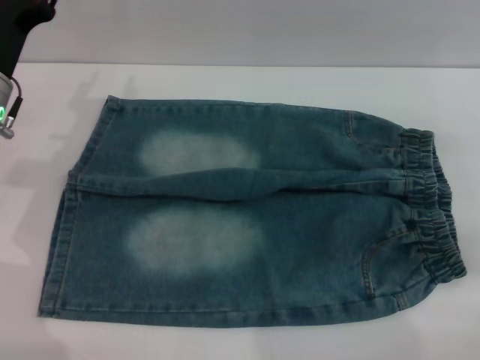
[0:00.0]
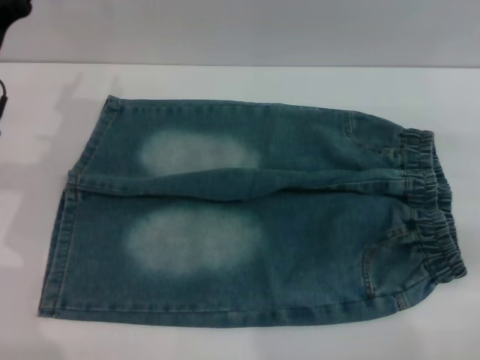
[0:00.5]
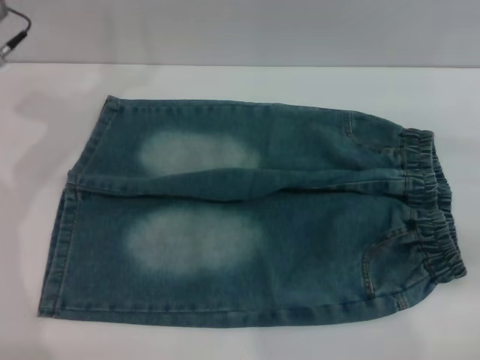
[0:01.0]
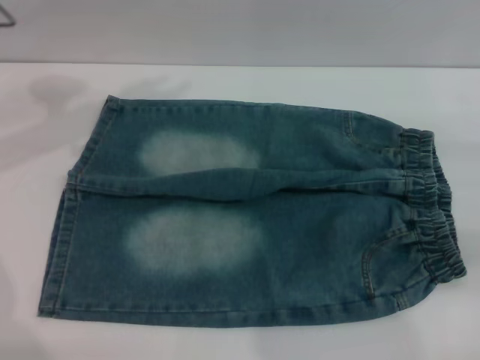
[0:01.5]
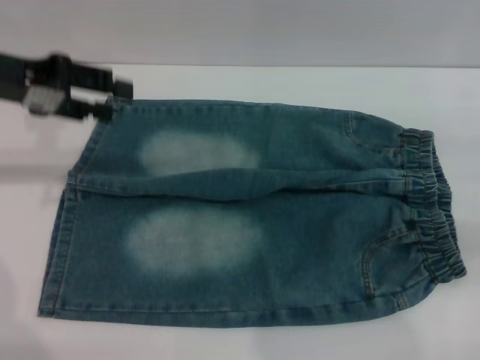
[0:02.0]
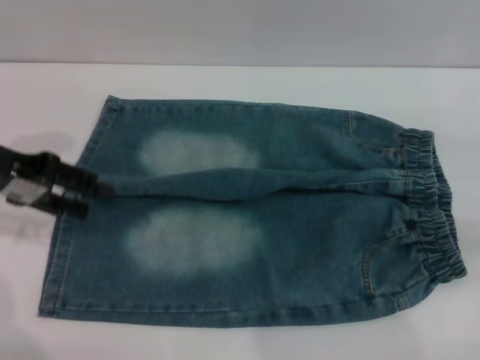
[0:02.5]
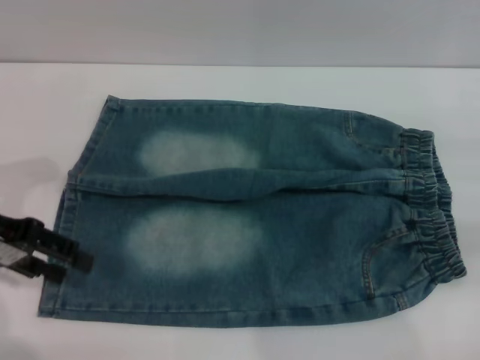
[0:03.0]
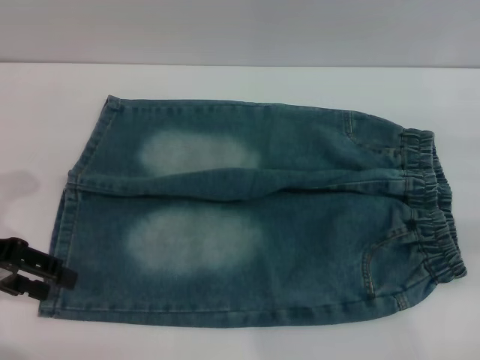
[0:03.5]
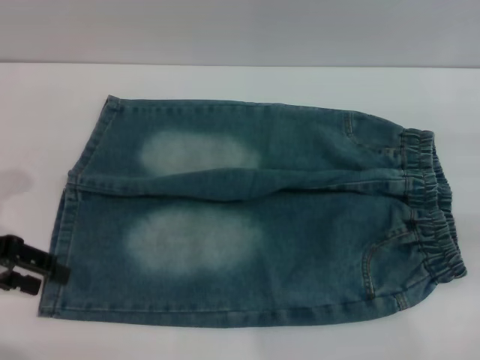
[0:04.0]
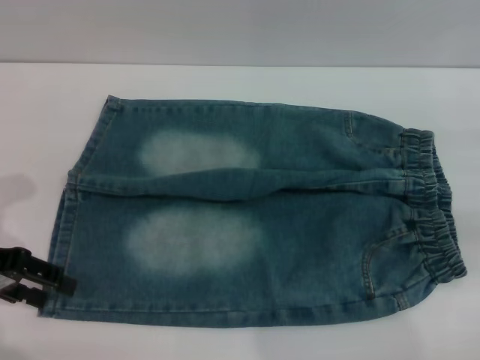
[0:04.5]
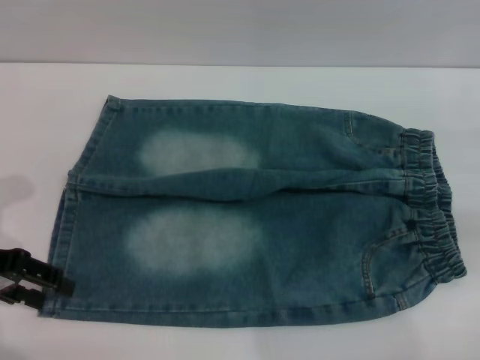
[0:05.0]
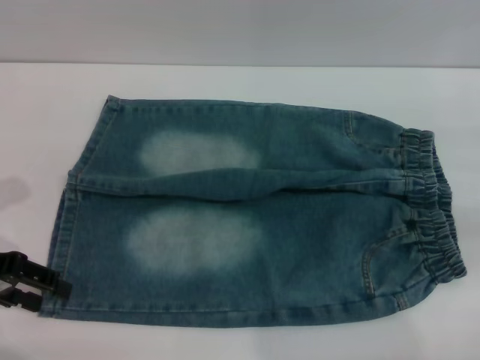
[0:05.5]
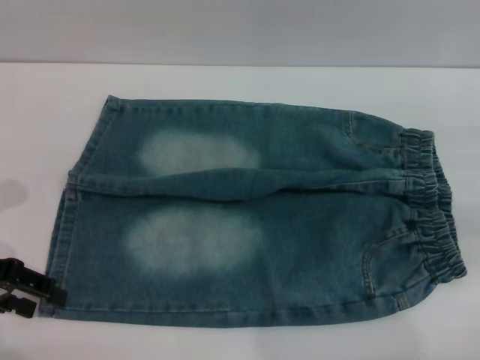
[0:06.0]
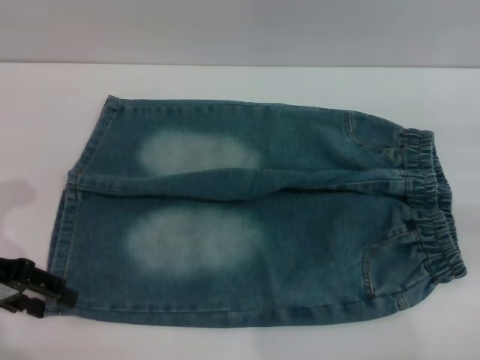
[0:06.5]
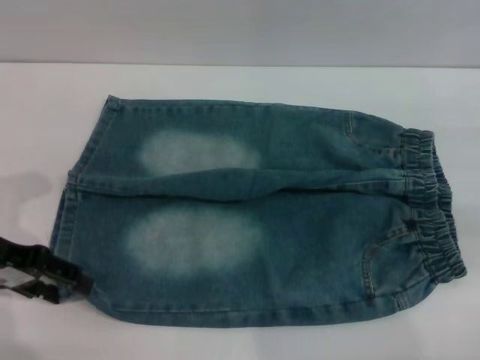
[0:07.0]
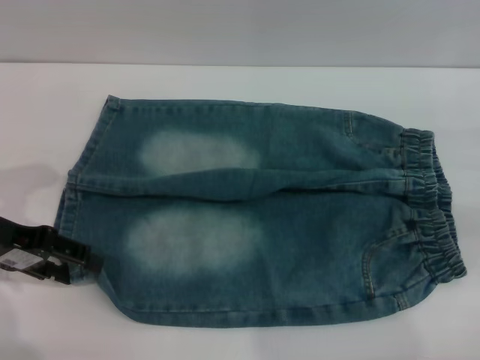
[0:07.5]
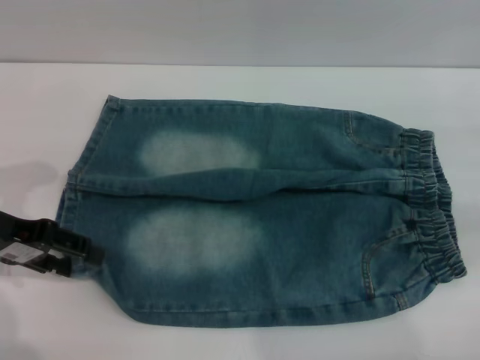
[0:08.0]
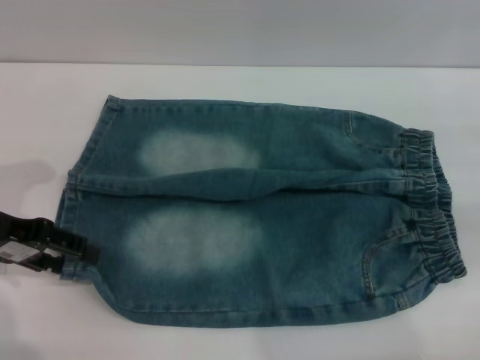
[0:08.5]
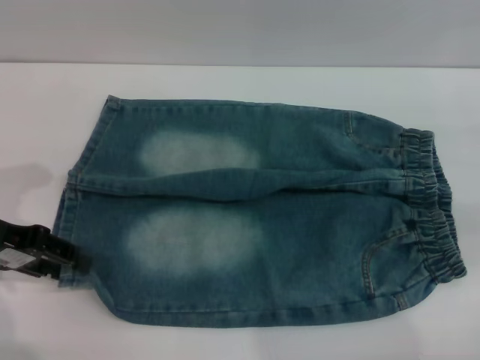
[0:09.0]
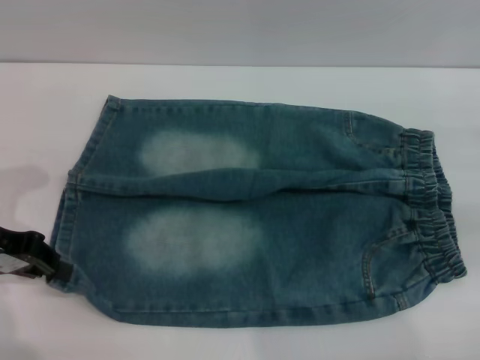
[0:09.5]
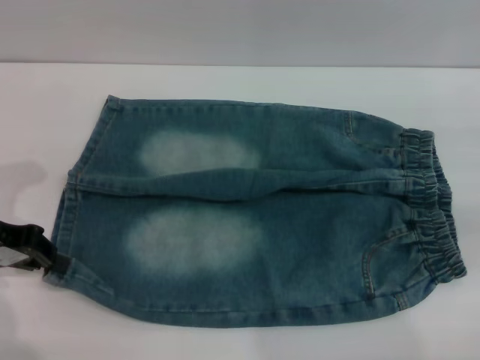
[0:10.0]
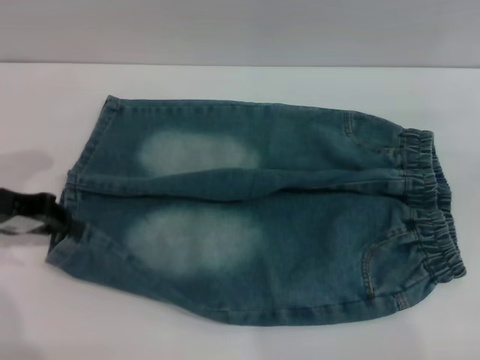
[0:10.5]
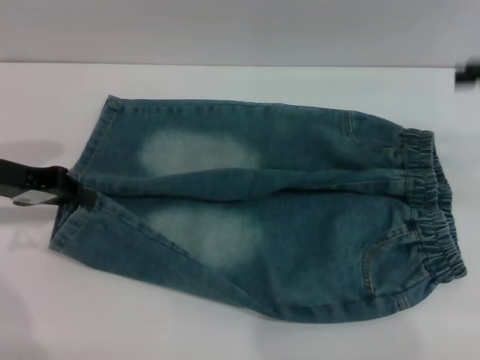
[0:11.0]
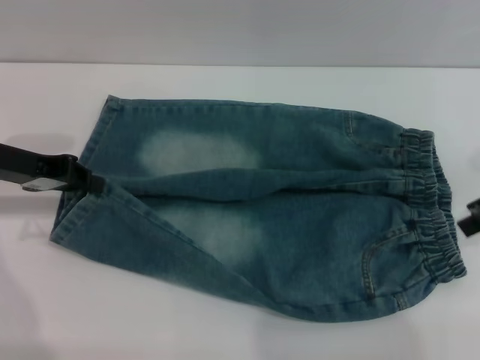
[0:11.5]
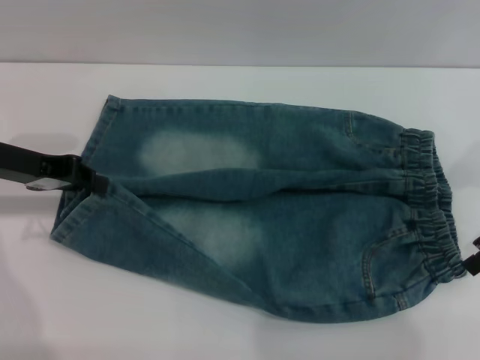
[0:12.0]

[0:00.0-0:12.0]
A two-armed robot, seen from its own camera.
0:00.0 to 0:02.0: The left gripper heads upward, covering roughly 10 cm.
0:02.0 to 0:04.0: The left gripper is displaced downward and backward by roughly 10 cm.
0:04.0 to 0:08.0: The grippers make only small movements.
0:08.0 to 0:10.0: The left gripper closes its fingers.
0:10.0 to 0:12.0: The right gripper moves to the left, approximately 10 cm. Meanwhile the left gripper moves approximately 5 cm.

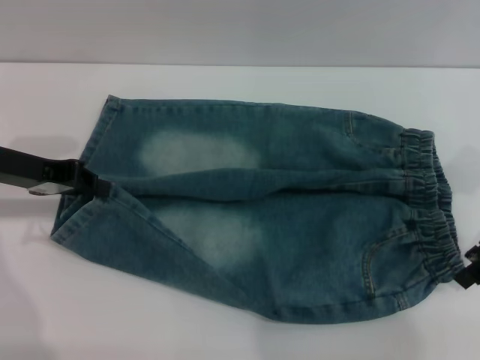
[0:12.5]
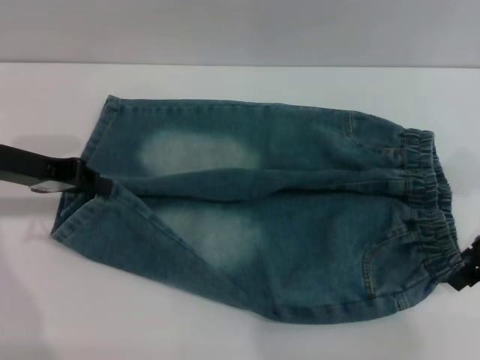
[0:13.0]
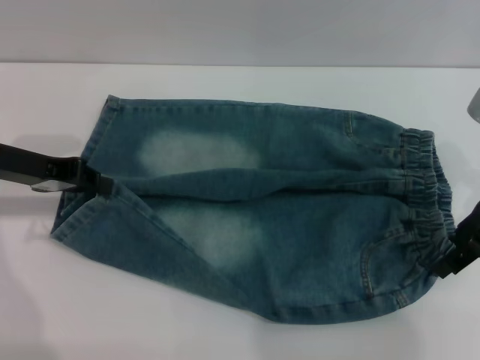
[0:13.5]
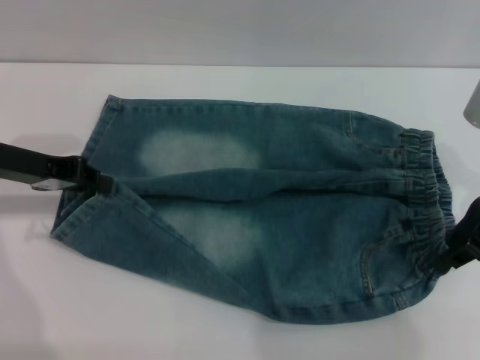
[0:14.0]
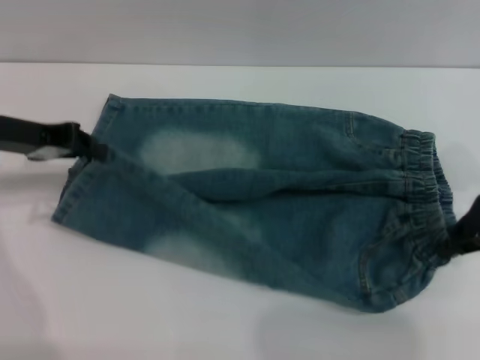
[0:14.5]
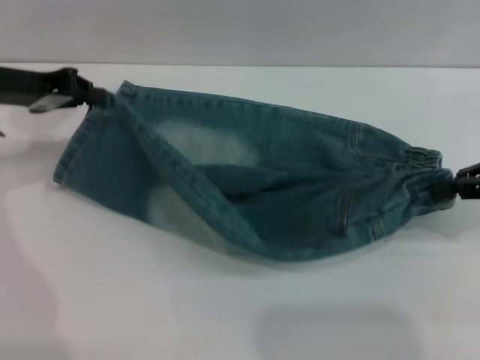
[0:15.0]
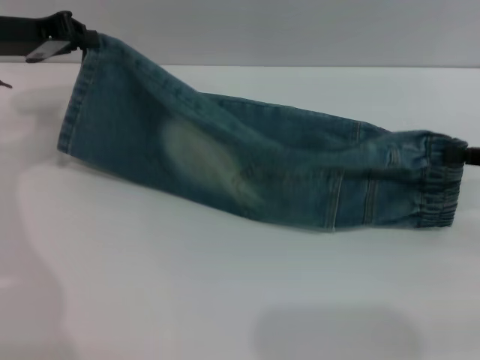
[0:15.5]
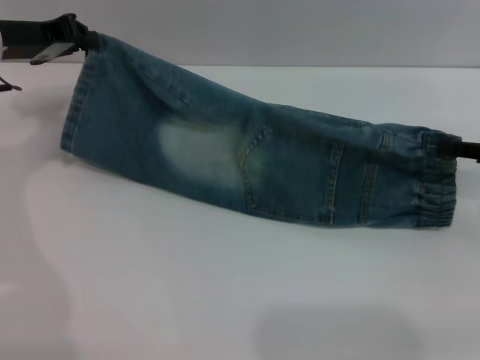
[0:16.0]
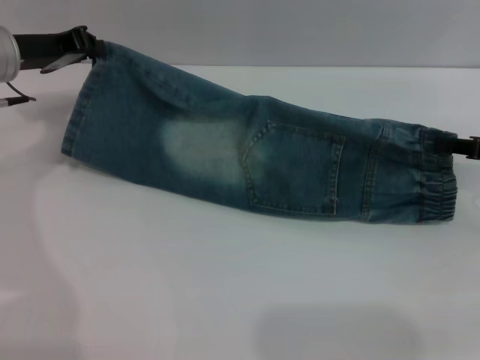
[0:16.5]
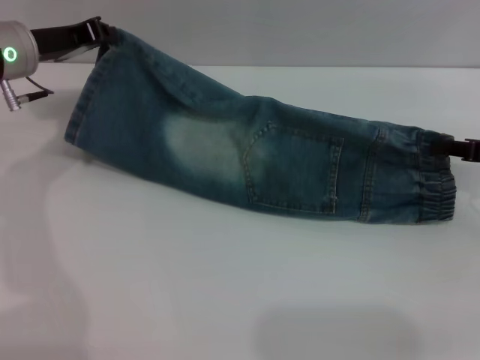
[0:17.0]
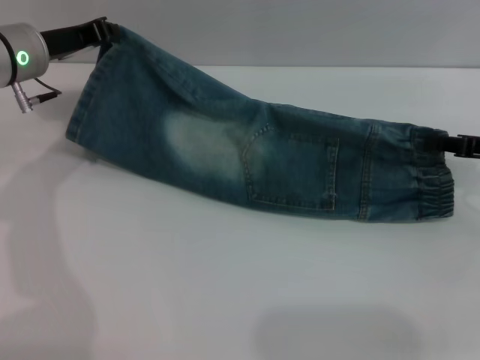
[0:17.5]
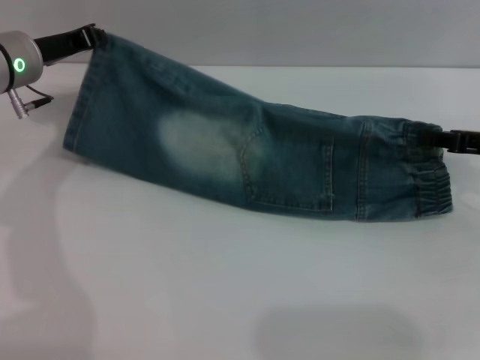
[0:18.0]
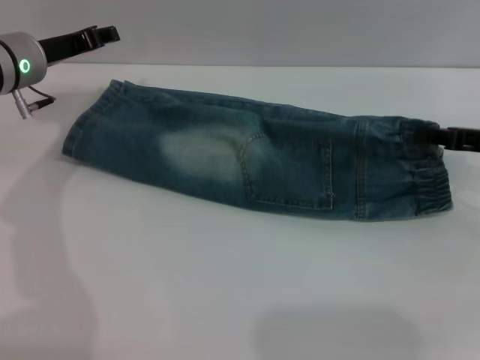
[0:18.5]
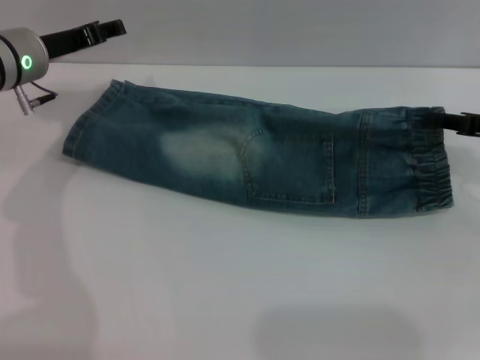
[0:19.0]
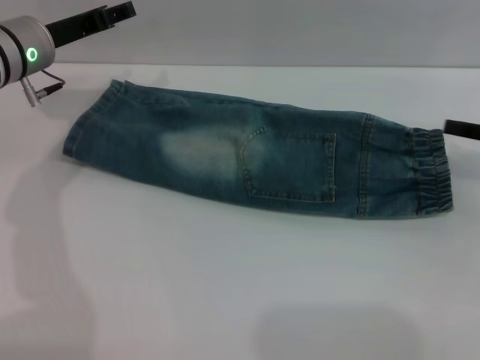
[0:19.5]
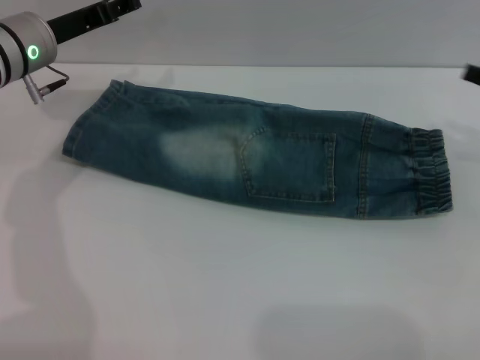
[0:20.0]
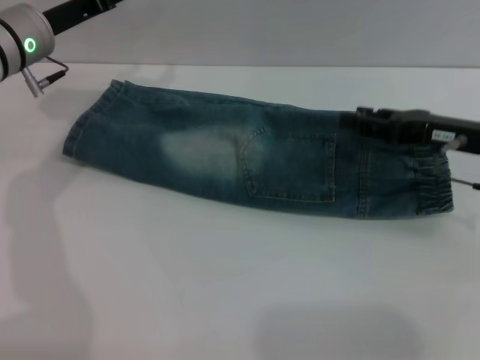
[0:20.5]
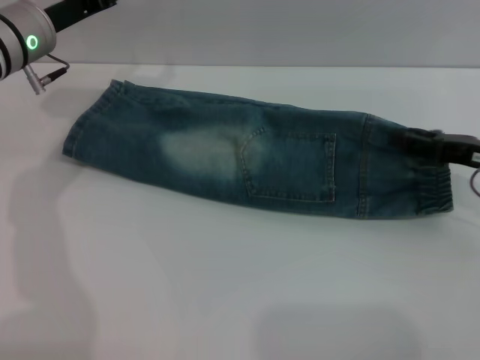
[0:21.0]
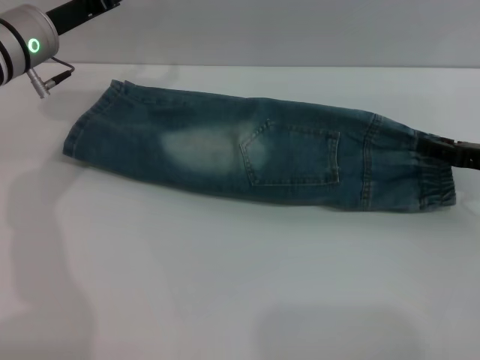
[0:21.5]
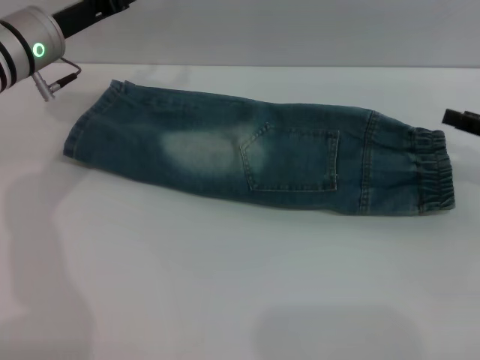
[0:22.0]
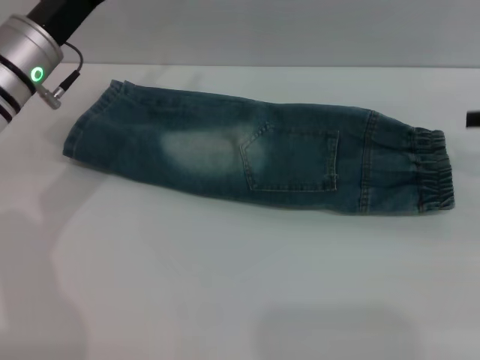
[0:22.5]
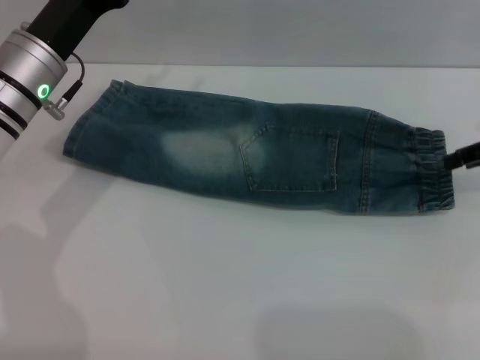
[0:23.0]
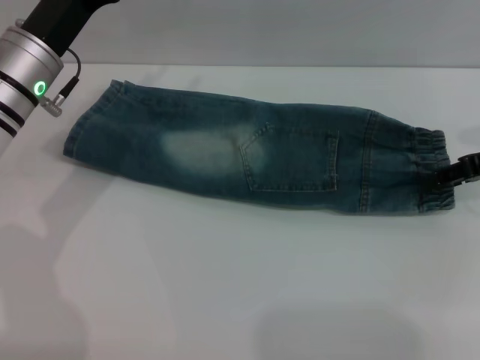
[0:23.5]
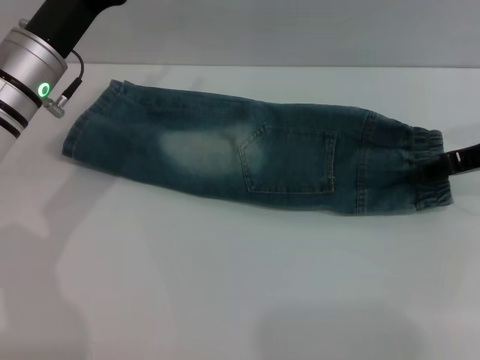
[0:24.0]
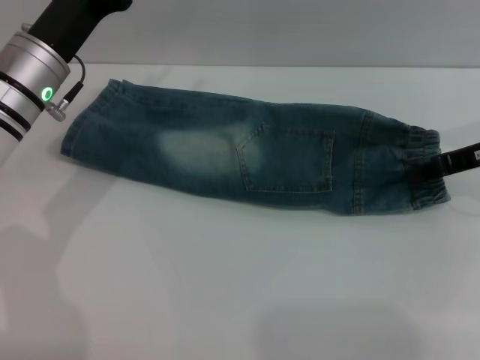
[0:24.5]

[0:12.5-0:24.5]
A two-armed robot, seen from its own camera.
Step, 0:12.5 to 0:18.0: Fold the bottom of the pants upward with both grippers.
0:12.5 to 0:14.5: The right gripper closes up.
0:14.5 to 0:16.5: The left gripper shifts about 5 cm forward; the right gripper goes approximately 10 cm to the right and downward.
0:16.5 to 0:18.5: The left gripper opens its fingers.
0:18.5 to 0:20.5: The right gripper shifts roughly 5 cm to the left, and opens up. Meanwhile the left gripper opens its fingers.
0:20.5 to 0:22.5: The right gripper shifts roughly 15 cm to the right and upward.
0:22.5 to 0:24.5: The right gripper moves to the left, about 10 cm, and closes its fingers.

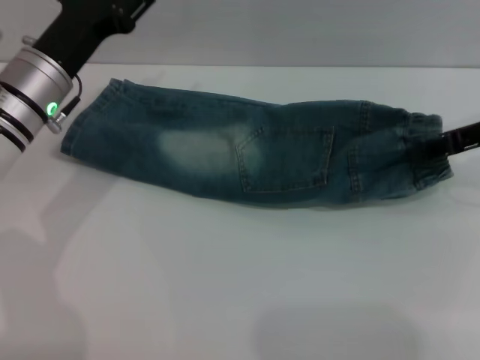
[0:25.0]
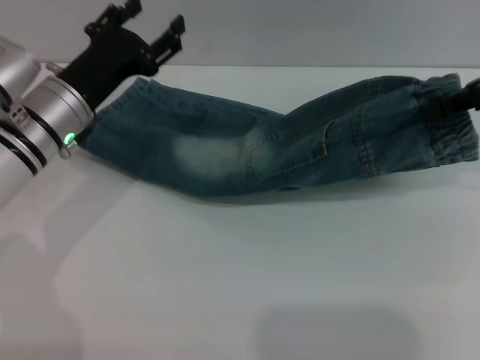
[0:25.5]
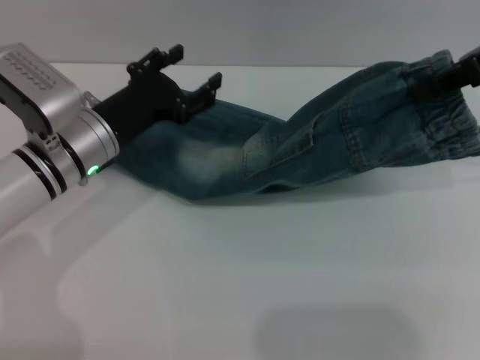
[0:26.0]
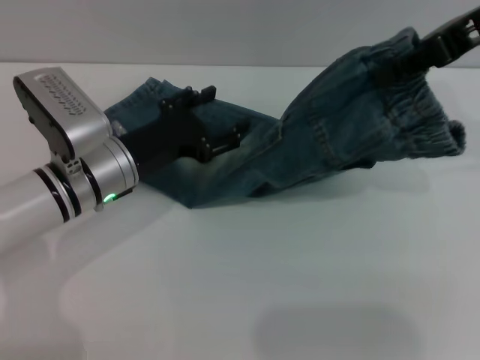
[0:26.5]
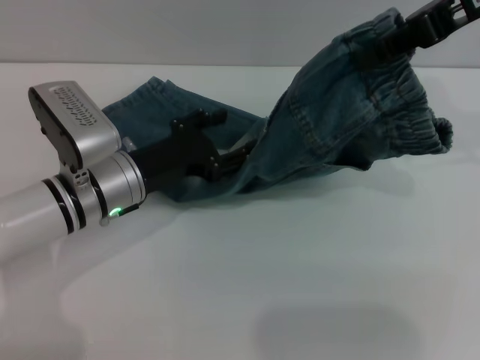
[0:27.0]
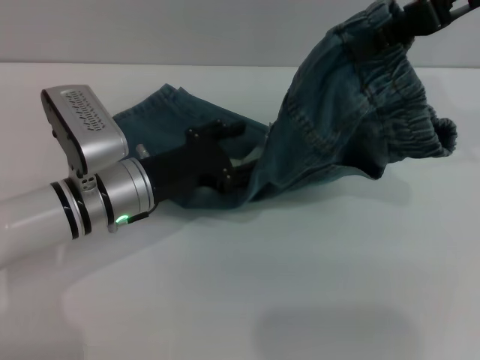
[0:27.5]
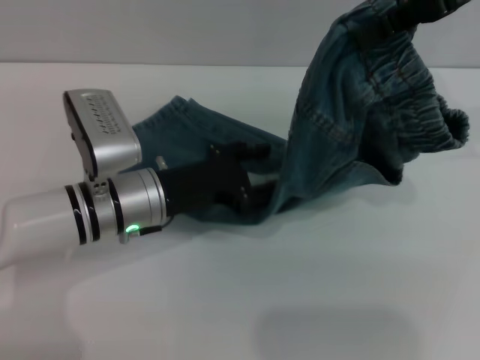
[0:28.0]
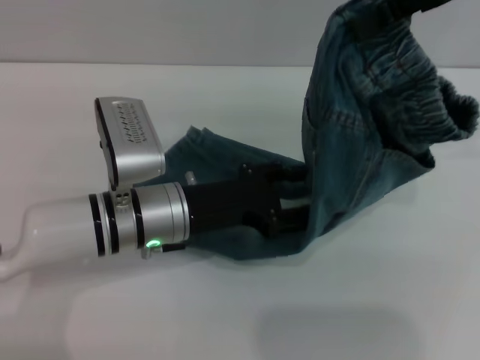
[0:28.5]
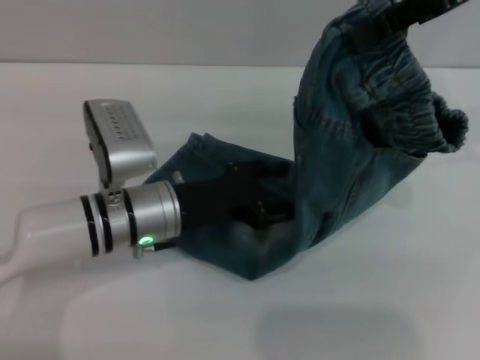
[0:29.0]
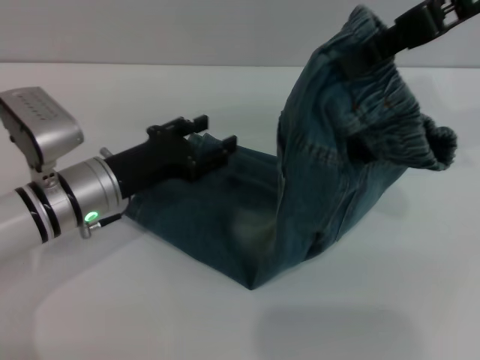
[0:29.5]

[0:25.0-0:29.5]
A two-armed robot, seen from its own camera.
0:25.0 to 0:27.0: The left gripper travels downward by some 5 cm. The right gripper shifts some 15 cm upward and to the left.
